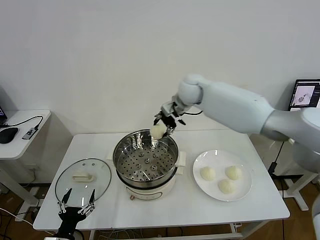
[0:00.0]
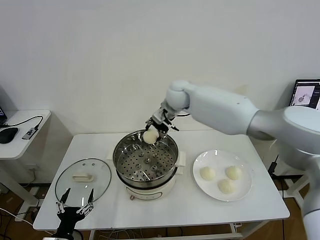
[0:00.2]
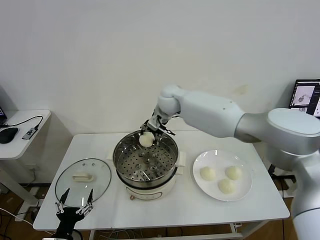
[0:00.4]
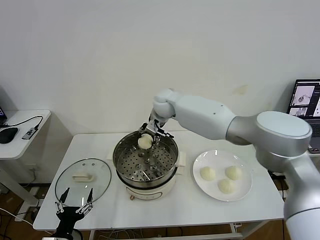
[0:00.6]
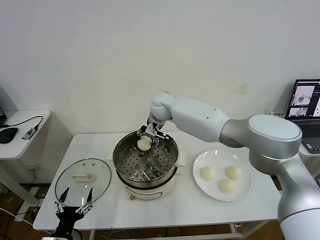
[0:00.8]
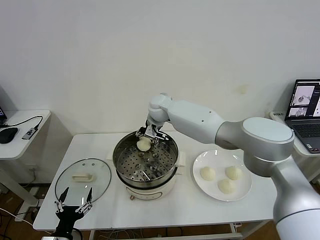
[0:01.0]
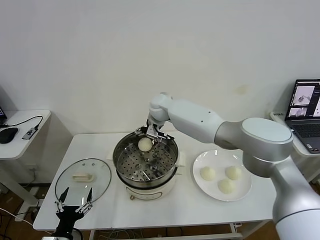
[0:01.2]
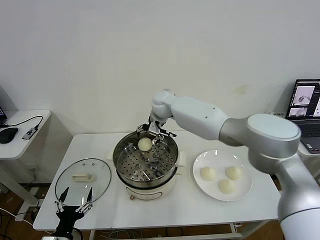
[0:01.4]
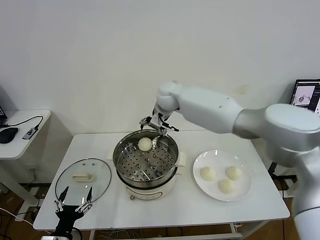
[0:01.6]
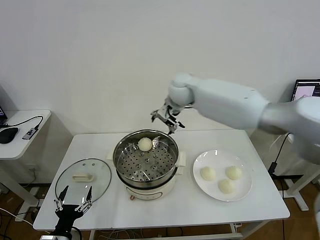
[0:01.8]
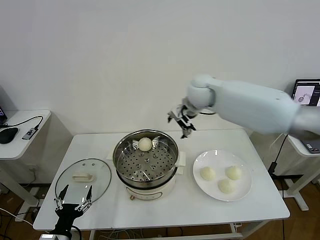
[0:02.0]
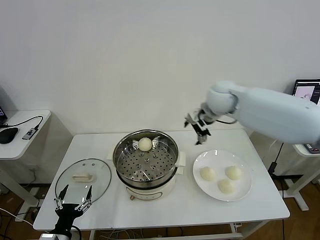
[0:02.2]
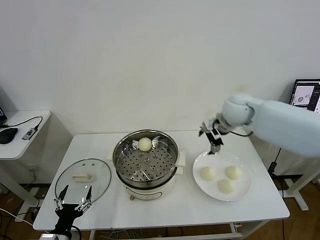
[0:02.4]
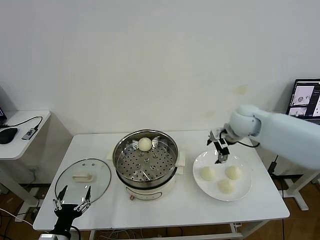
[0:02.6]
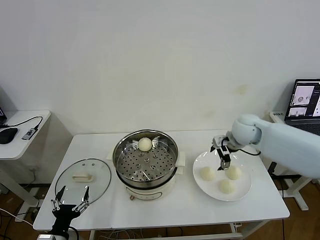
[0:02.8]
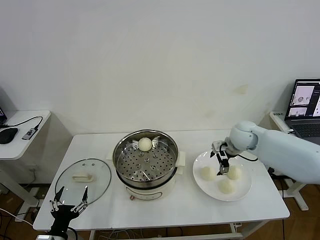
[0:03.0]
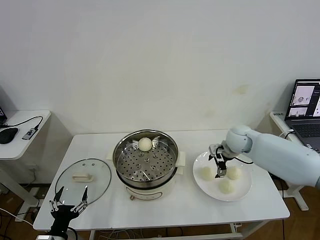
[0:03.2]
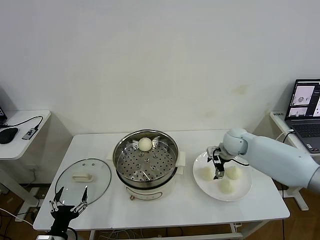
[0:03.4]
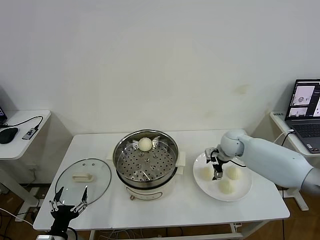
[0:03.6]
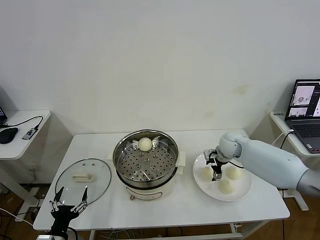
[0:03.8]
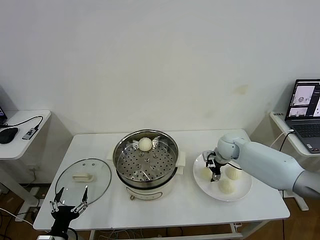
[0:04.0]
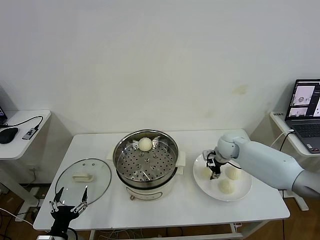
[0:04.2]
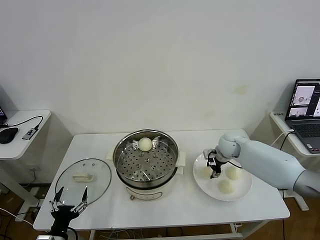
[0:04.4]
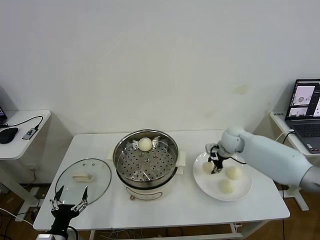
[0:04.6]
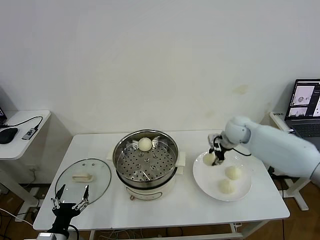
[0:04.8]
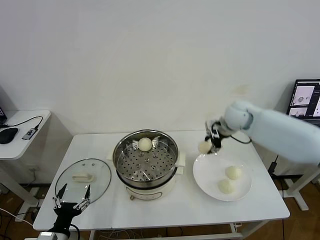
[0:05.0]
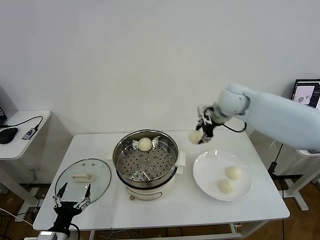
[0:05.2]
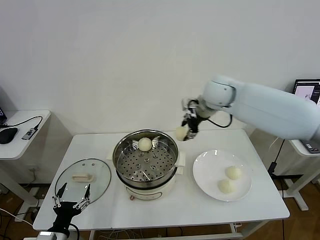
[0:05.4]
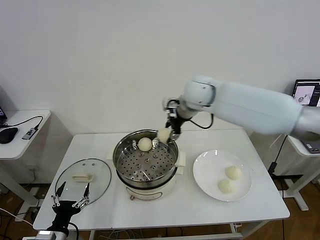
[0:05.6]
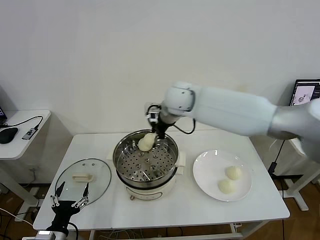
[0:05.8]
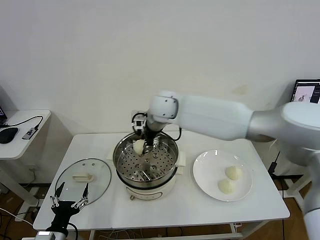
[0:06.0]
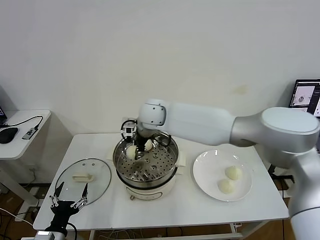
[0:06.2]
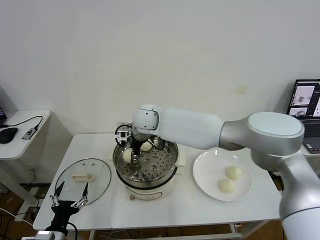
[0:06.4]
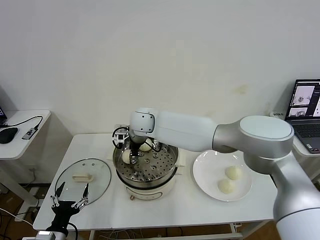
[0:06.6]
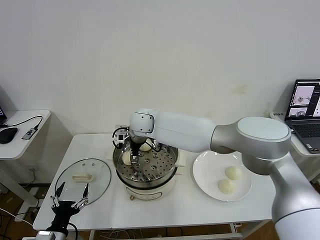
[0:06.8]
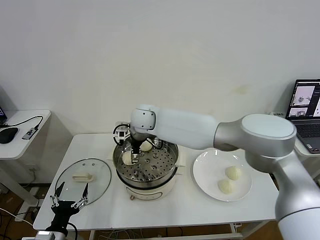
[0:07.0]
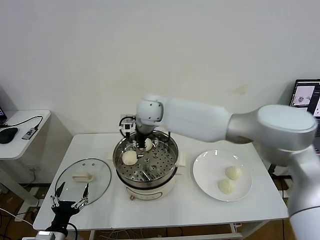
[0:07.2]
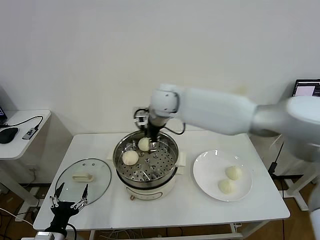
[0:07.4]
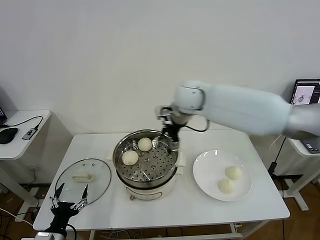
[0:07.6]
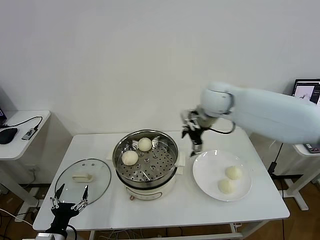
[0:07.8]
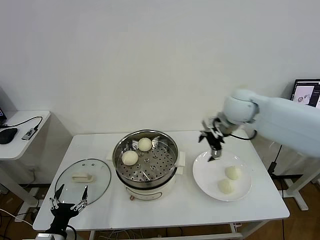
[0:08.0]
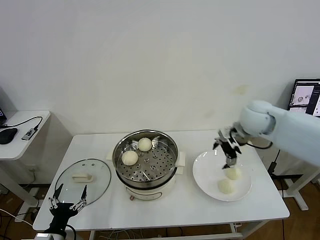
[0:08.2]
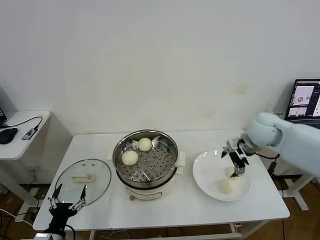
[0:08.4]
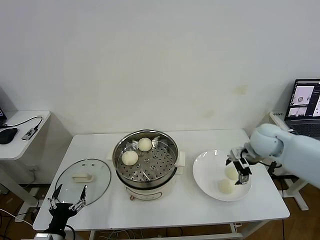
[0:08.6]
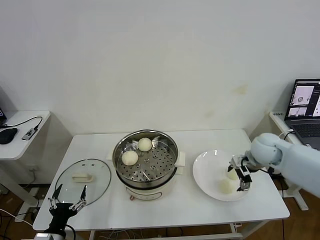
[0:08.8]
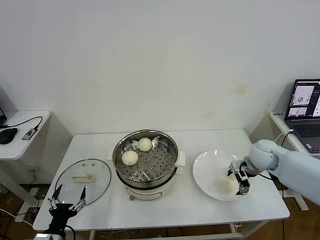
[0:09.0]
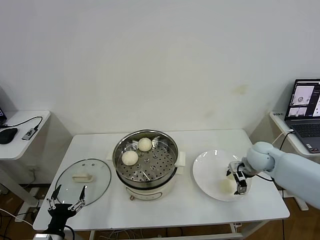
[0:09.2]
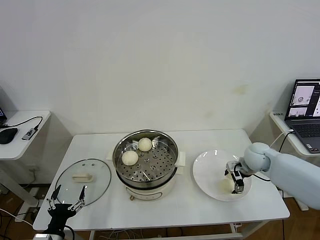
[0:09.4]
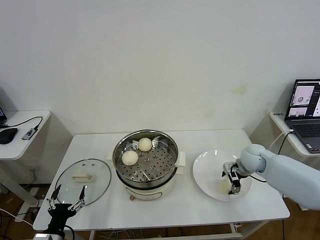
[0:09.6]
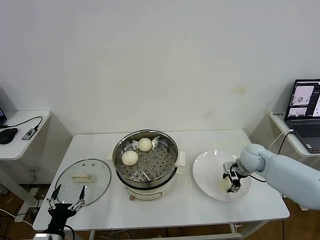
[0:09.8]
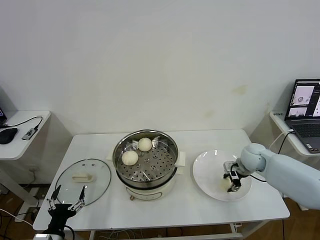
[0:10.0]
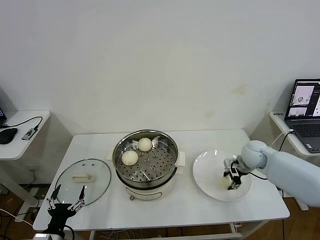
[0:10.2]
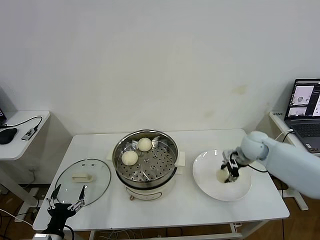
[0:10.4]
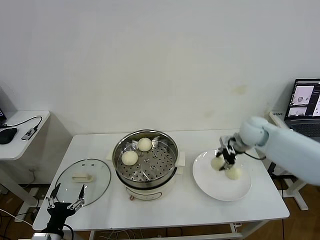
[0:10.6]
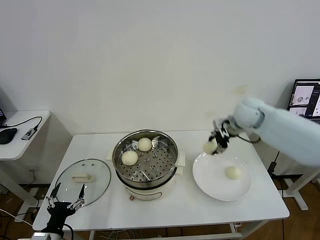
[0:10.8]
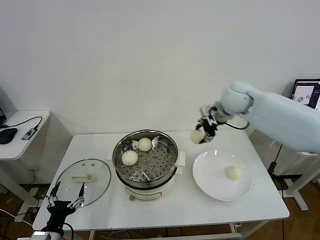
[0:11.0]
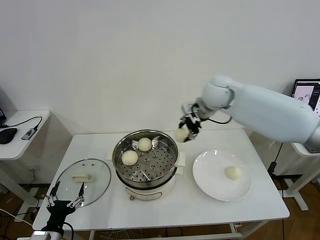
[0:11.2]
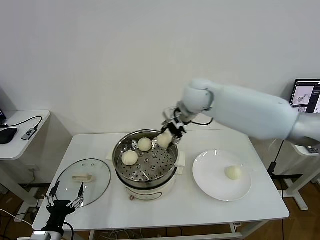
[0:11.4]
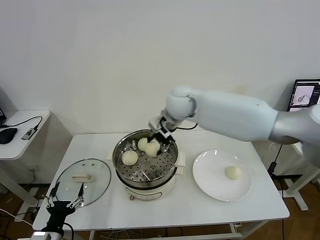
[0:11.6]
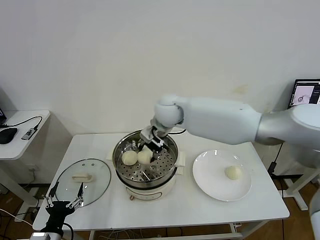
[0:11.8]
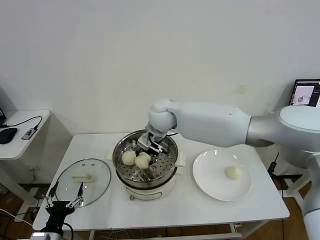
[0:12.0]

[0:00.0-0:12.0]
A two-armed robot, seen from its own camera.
Task of the whole recording: take steamed baozi put them in steamer then cover it.
Step, 1.6 to 4.4 s: Grasp the baozi in the plate with right gripper.
Step, 4.6 to 7.0 s: Place the baozi on the steamer with right gripper.
Step, 7.4 to 10.0 s: Grasp the baozi in the plate with right gripper.
0.0 to 1.6 s: The right gripper moves about 5 cm downward and comes back, and opens its fingers.
1.6 to 3.0 s: The right gripper travels to the right and downward by about 25 cm.
3.0 to 4.4 s: The right gripper ends up about 5 cm from where it was, and closes its fingers.
4.4 to 6.0 s: The right gripper shifts some 35 cm to the left and upward.
6.0 to 7.6 s: The right gripper goes roughly 15 cm to the right, and opens its fingers.
7.6 to 9.0 s: The right gripper travels to the right and downward by some 30 cm.
9.0 to 10.4 s: The right gripper ends up approximately 5 cm from where it was, and closes.
10.4 to 12.0 s: The right gripper travels to the left by approximately 35 cm.

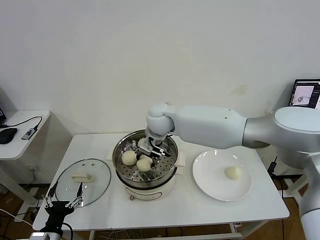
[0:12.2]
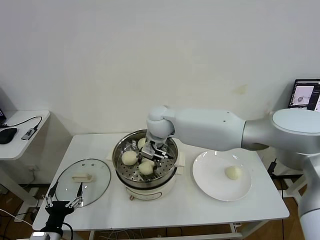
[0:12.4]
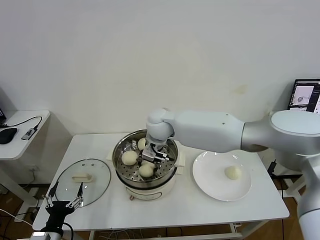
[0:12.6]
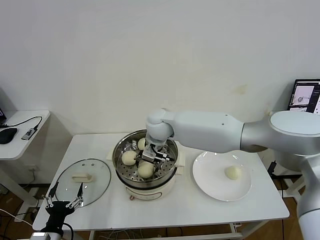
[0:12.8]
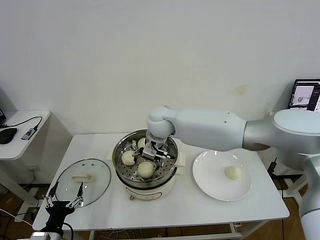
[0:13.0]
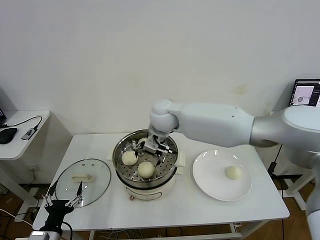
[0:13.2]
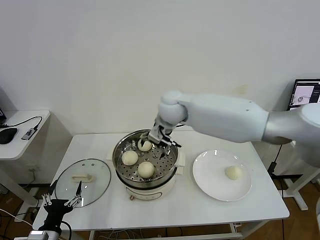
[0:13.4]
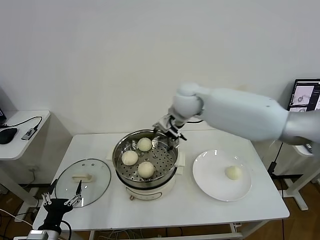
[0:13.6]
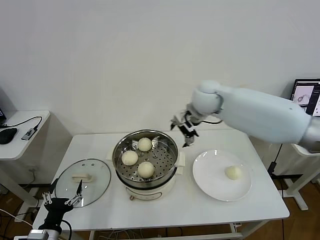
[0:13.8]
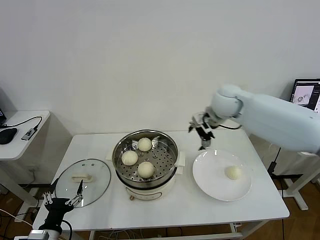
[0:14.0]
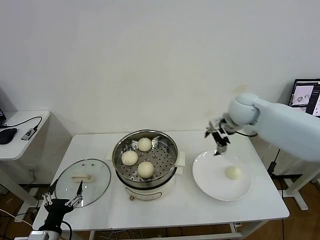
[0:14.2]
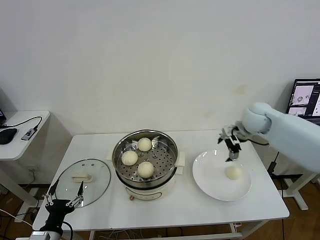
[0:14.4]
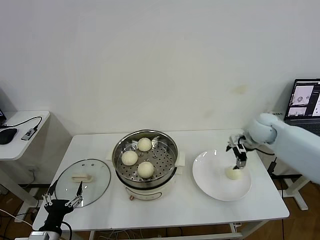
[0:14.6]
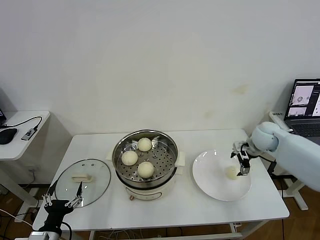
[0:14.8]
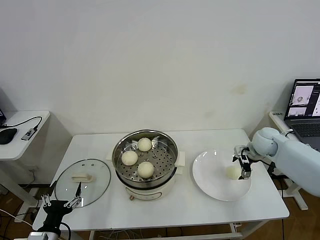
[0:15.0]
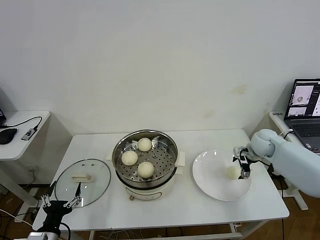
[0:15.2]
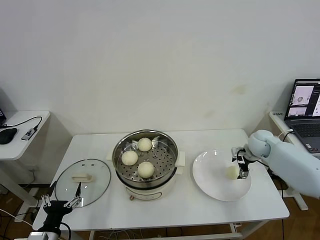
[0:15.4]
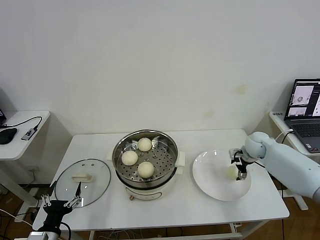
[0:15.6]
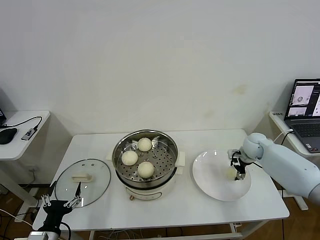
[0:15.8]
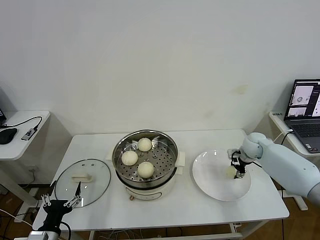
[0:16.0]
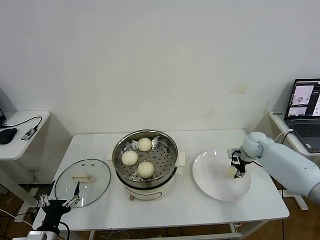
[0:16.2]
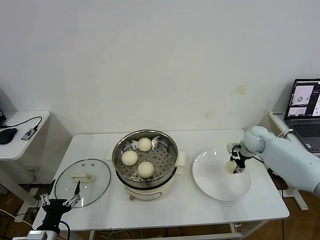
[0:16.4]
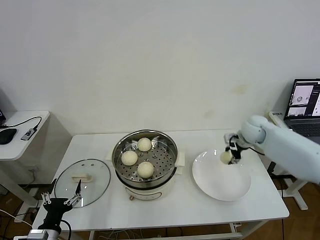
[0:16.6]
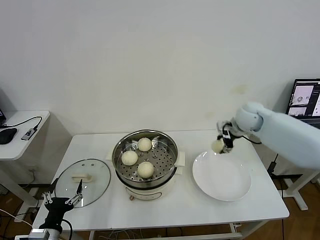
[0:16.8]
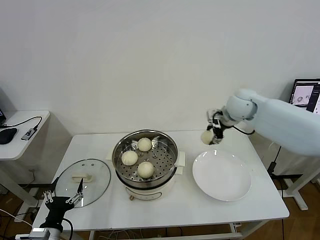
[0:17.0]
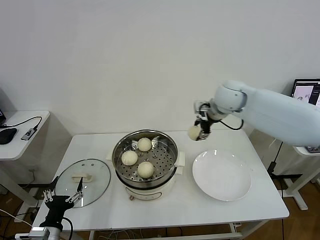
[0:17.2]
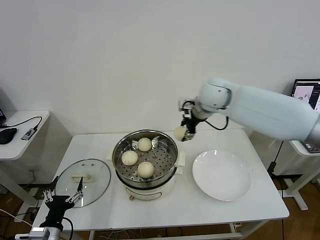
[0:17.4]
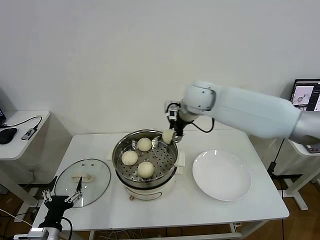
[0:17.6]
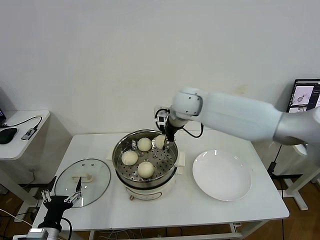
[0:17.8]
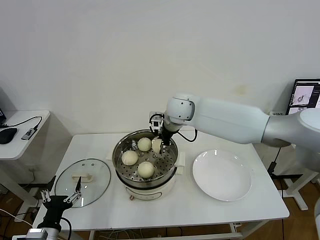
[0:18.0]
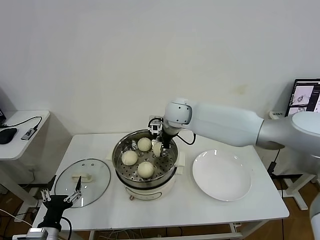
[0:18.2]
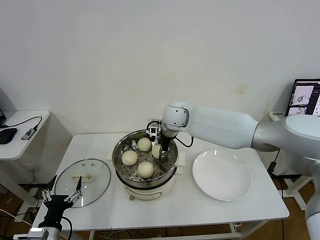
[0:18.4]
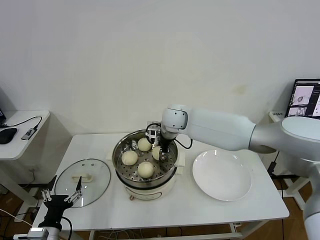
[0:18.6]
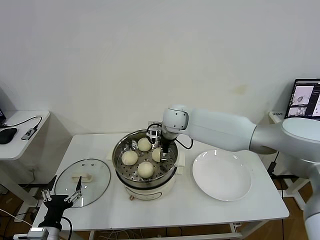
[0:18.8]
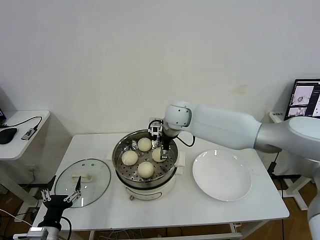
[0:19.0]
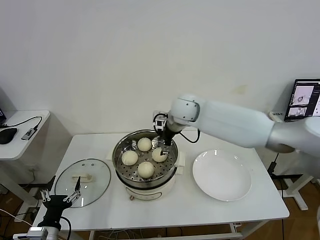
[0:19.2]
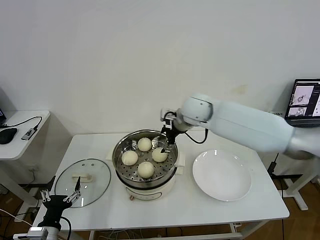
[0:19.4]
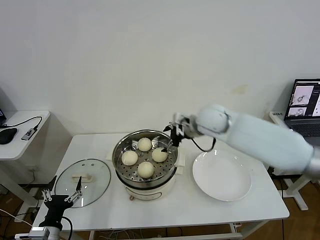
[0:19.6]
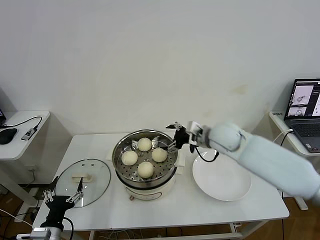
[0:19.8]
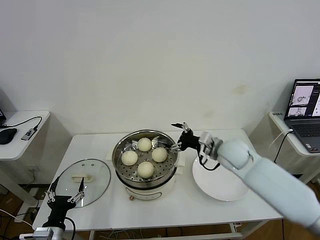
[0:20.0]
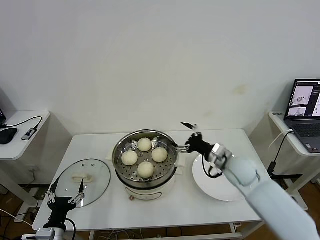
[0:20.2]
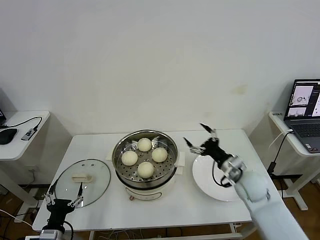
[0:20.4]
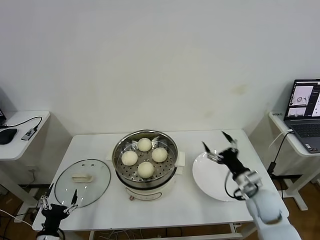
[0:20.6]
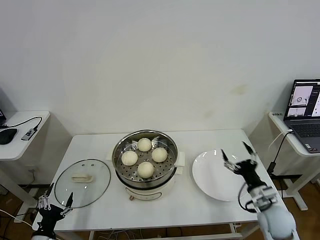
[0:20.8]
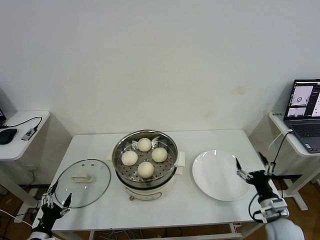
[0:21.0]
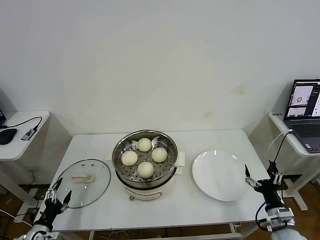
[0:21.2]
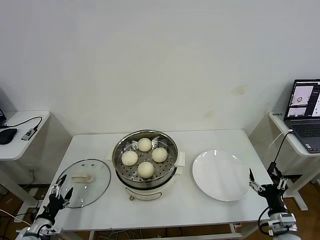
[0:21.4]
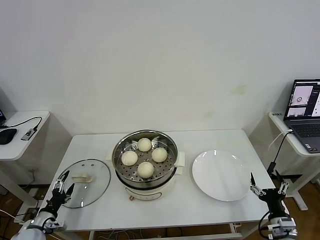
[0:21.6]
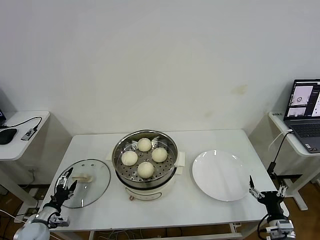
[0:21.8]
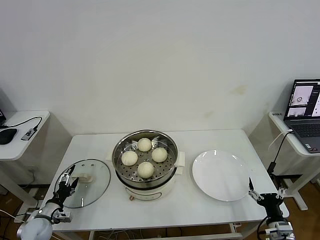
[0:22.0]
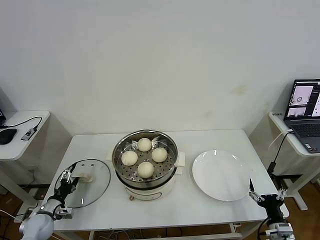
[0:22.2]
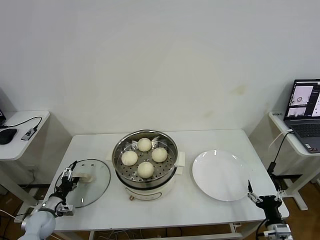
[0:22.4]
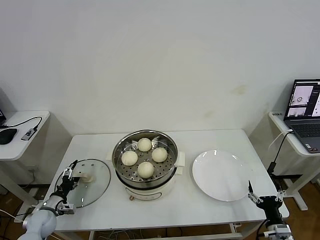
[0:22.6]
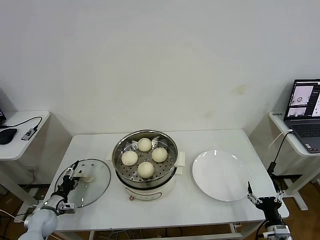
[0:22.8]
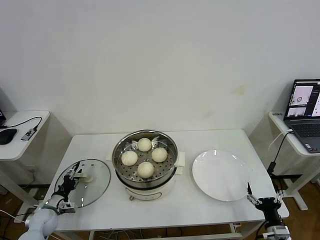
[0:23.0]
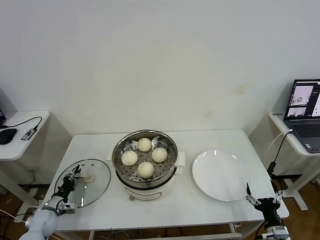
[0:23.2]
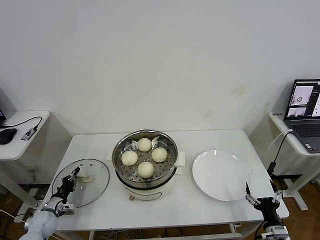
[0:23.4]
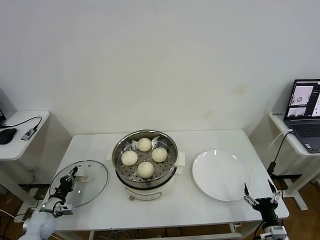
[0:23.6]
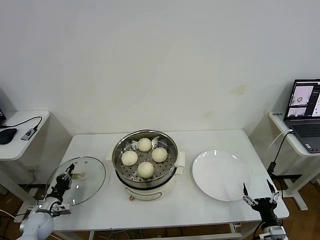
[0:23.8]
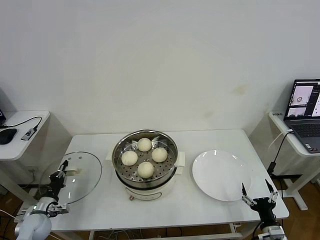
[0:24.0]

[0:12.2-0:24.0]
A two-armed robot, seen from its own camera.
Task of the whole recording: take steamed baozi put them in steamer then cover it.
Step, 13.2 to 16.2 s: Grasp the baozi in the plate with right gripper.
Step, 16.6 to 19.2 s: Place the baozi on the steamer with right gripper.
Step, 19.4 to 23.6 s: Grasp the pot lid with left gripper.
12.2 to 13.6 s: The right gripper shifts about 10 cm to the right and upward, and opens its fingers.
13.6 to 15.2 s: The right gripper heads to the right and downward, covering approximately 35 cm.
15.2 to 16.6 s: The right gripper shifts roughly 5 cm upward, and closes its fingers.
16.6 to 18.2 s: The right gripper goes some 30 cm to the left.
18.2 to 19.6 s: The right gripper heads to the right and backward, covering about 10 cm, and opens up.
19.6 to 21.0 s: The right gripper moves backward, downward and to the right, some 40 cm. The left gripper goes some 10 cm to the left and downward.
21.0 to 22.6 s: The right gripper is displaced backward and downward by approximately 10 cm, while the left gripper is displaced forward by about 15 cm.
22.6 to 24.0 s: The left gripper closes up.
